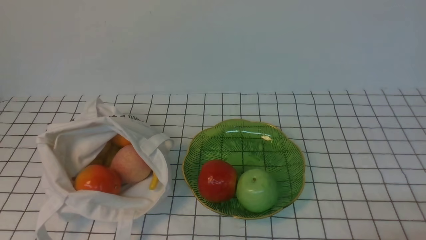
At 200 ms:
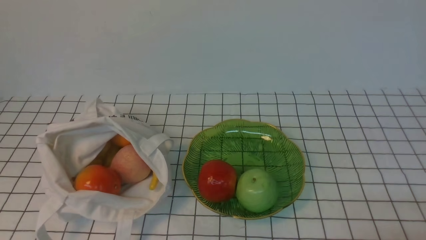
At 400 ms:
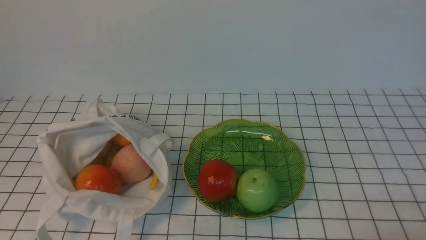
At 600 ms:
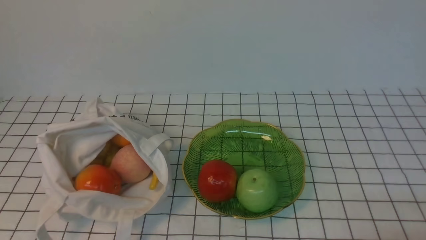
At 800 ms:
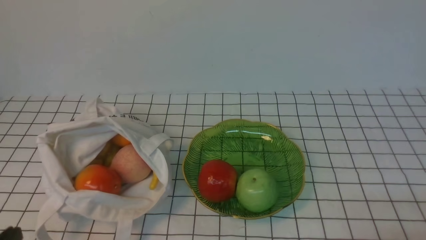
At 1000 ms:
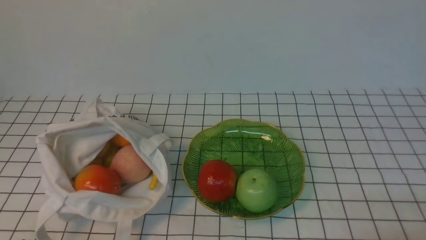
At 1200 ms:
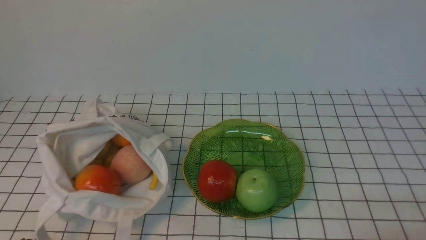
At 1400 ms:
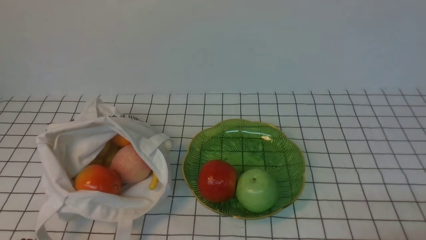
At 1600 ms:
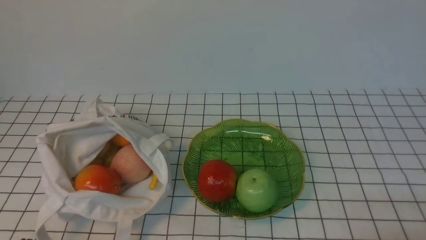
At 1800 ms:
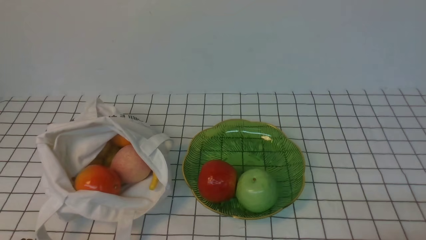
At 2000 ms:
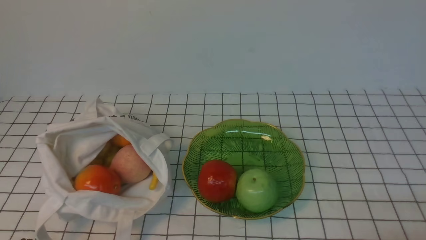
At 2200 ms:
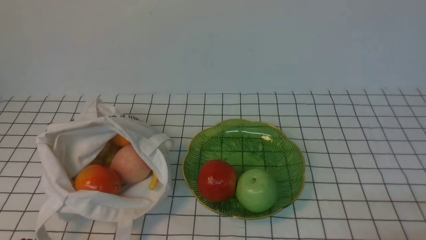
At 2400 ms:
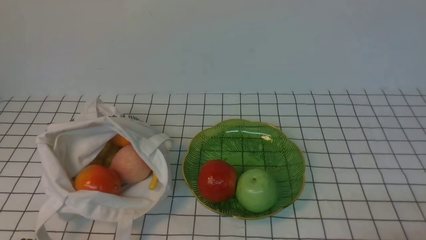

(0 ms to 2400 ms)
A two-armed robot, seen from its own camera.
1200 ms - 2400 ms: The two grippers keep their place.
